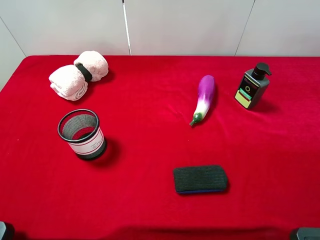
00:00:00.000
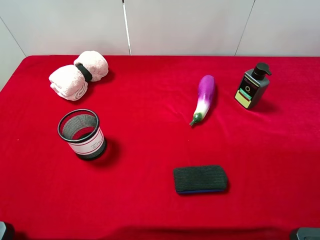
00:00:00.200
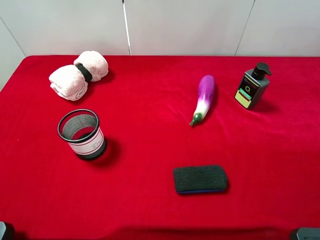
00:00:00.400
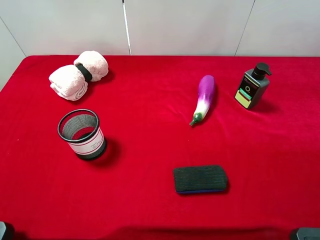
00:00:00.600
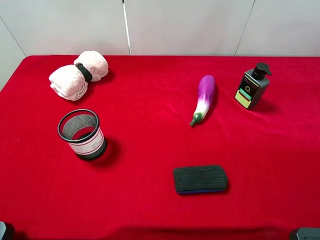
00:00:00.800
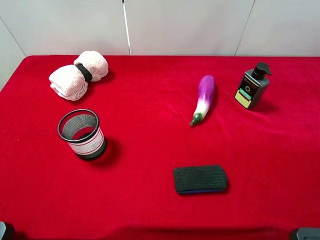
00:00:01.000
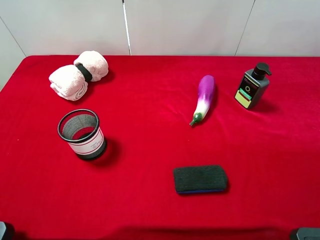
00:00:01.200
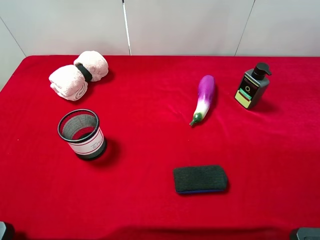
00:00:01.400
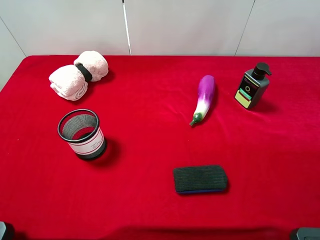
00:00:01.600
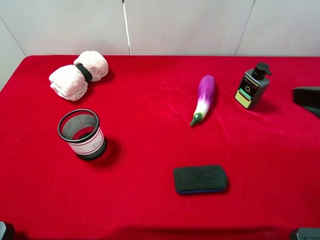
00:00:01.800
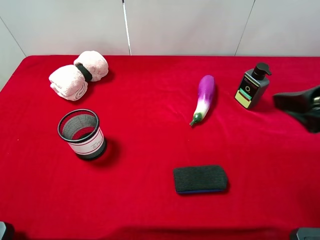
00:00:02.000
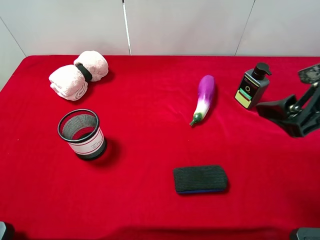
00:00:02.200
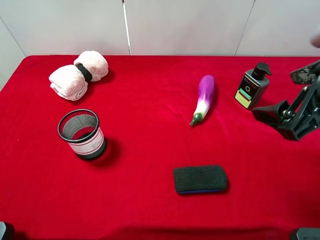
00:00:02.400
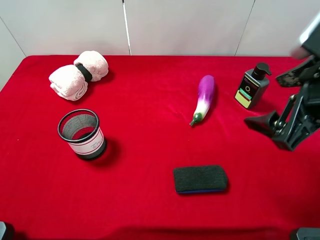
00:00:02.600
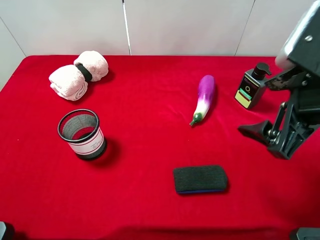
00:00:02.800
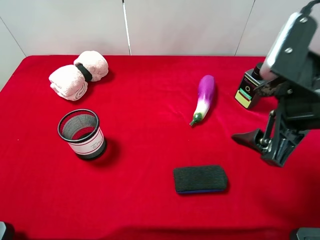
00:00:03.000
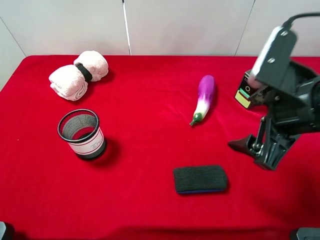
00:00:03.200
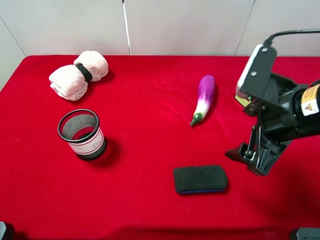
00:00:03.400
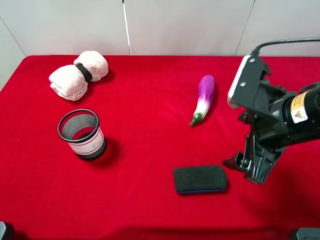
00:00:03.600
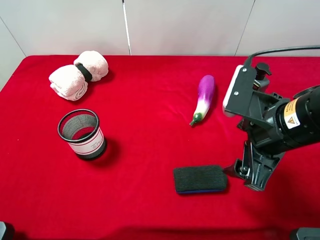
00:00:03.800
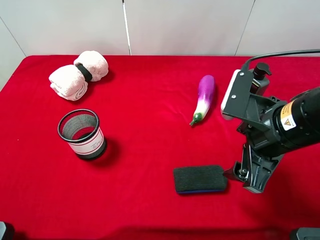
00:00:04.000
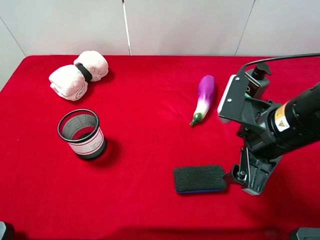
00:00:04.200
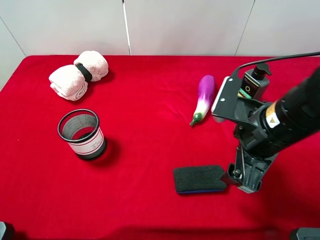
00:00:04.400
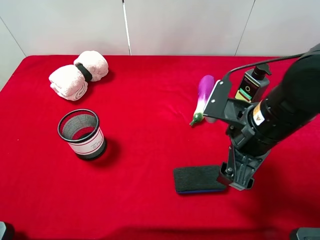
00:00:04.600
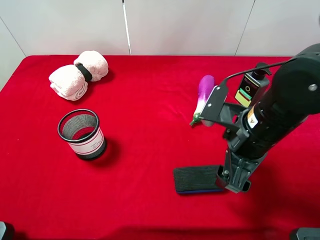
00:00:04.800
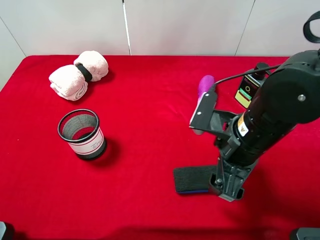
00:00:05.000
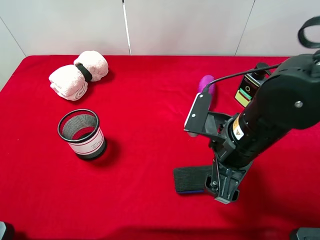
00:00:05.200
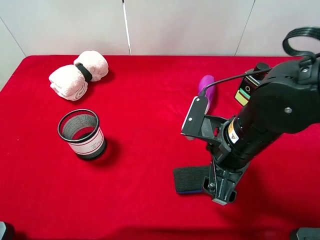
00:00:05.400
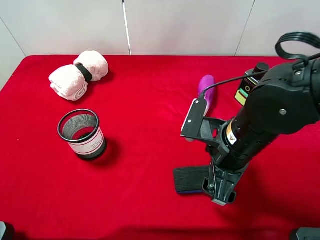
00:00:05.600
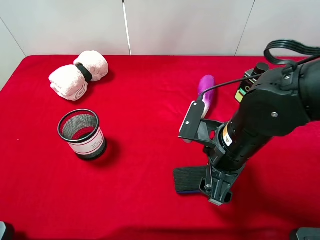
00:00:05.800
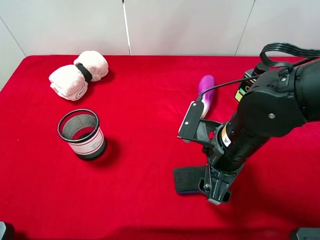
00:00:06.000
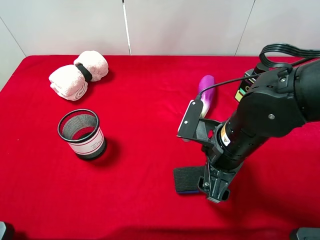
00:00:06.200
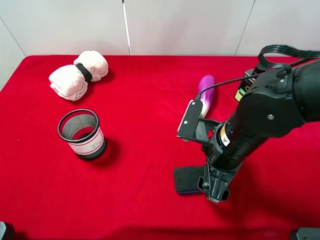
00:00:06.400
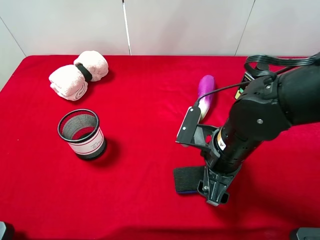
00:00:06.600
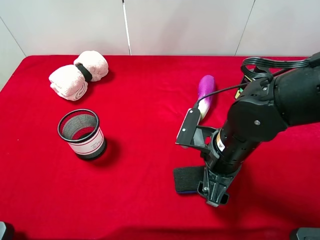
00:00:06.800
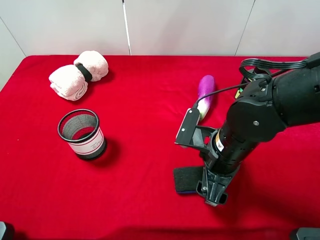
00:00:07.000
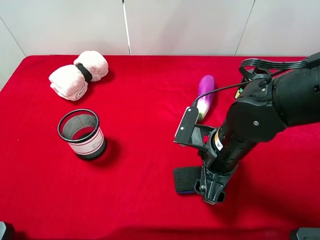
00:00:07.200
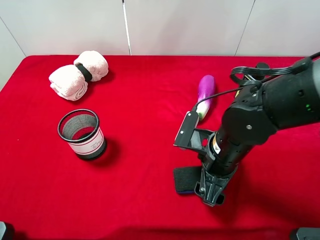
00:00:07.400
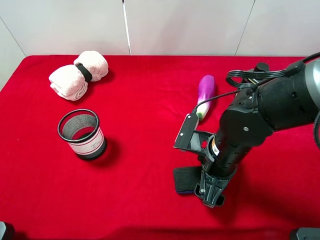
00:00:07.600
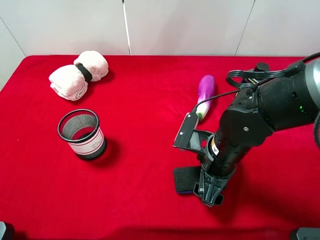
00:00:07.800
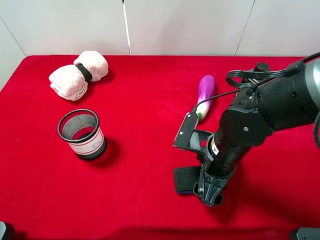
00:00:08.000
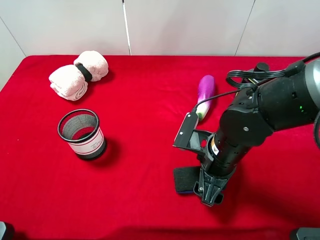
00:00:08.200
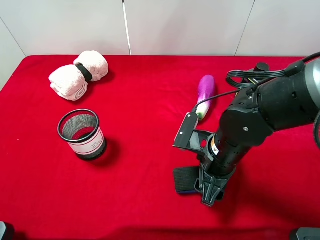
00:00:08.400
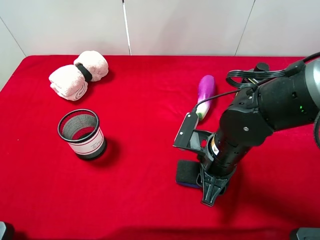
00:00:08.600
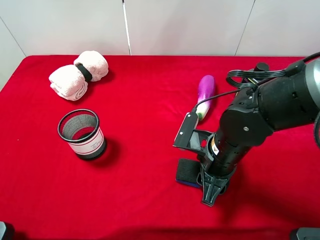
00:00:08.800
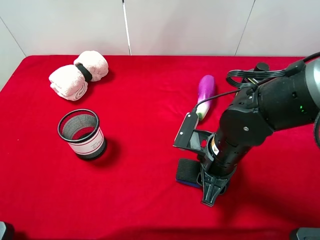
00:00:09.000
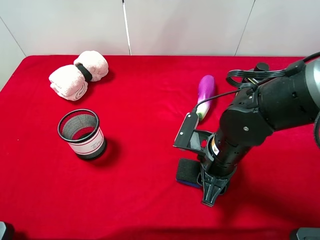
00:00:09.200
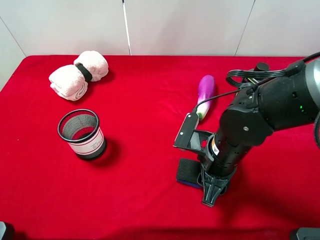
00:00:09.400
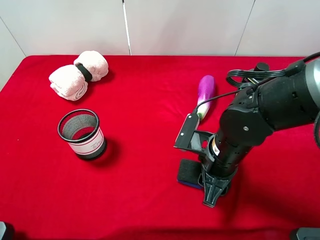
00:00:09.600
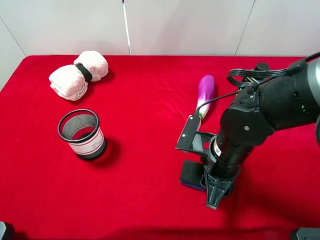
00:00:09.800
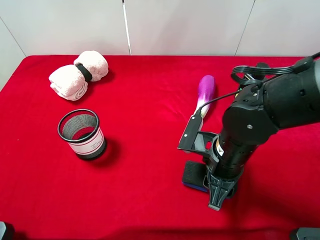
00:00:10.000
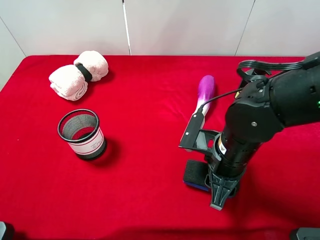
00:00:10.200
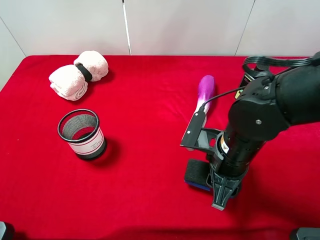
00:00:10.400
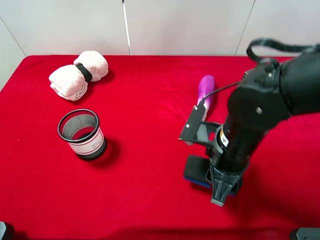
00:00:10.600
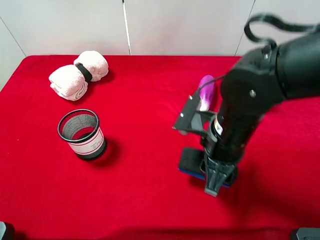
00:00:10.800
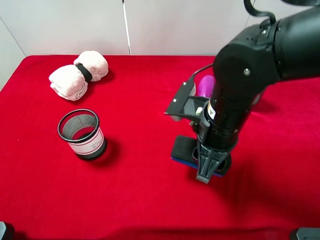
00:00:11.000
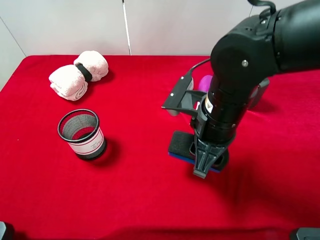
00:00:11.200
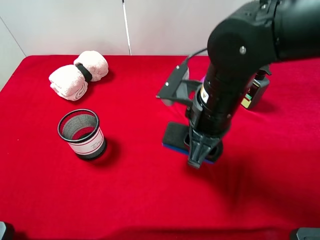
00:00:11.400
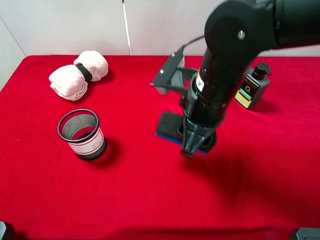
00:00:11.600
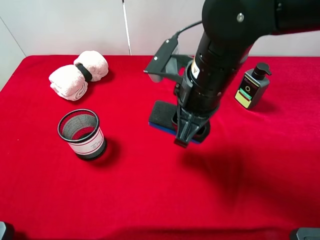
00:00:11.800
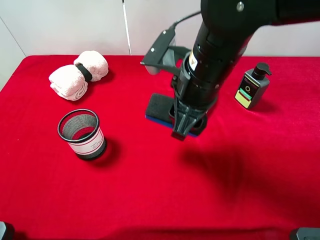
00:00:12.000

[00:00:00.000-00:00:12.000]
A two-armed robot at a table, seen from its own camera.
Task of the whole recording: the gripper move the object.
Step, 00:00:00.000 to 00:00:09.000: Grasp the blue blackboard erasure with the right gripper.
00:00:01.600 to 00:00:03.000: The right gripper moves to the left, downward and forward, approximately 10 cm.
00:00:03.000 to 00:00:04.400: The right gripper is displaced downward by about 5 cm.
00:00:04.400 to 00:00:06.000: The right gripper ends up some 5 cm from where it was.
00:00:06.000 to 00:00:07.600: The grippers move only a little.
00:00:07.600 to 00:00:09.000: The right gripper closes its fingers.
00:00:09.000 to 00:00:10.400: The grippers move only a little.
00:00:10.400 to 00:00:12.000: The right gripper moves upward, to the left and forward, approximately 15 cm.

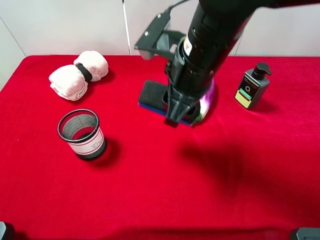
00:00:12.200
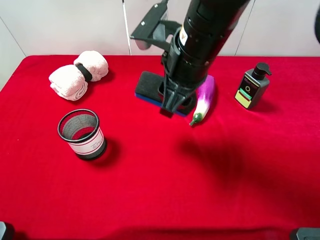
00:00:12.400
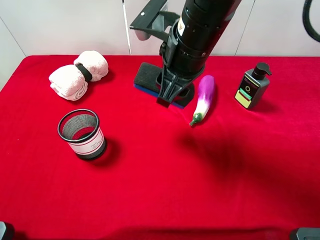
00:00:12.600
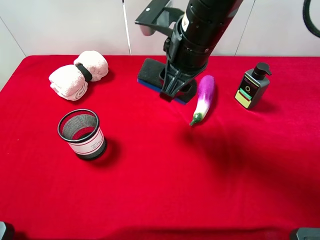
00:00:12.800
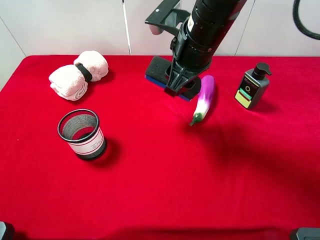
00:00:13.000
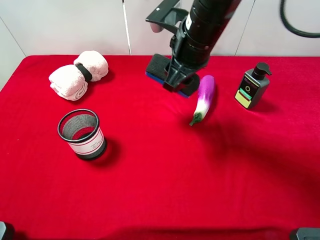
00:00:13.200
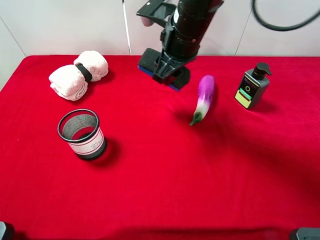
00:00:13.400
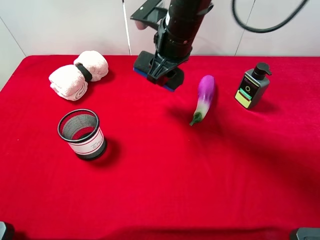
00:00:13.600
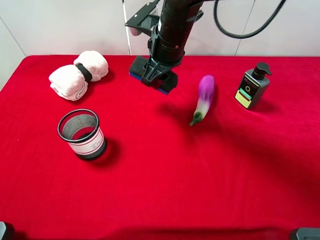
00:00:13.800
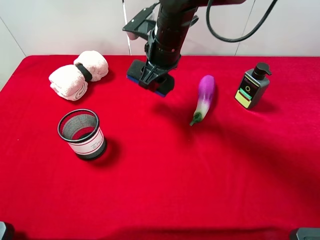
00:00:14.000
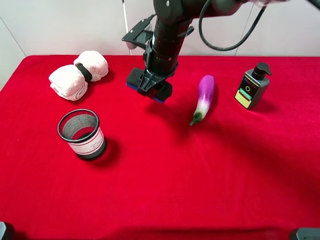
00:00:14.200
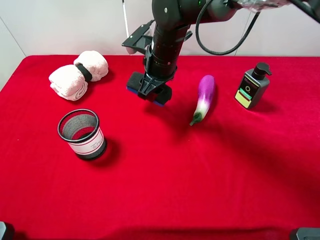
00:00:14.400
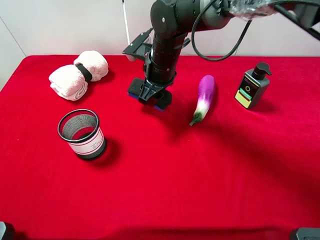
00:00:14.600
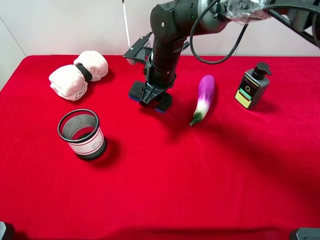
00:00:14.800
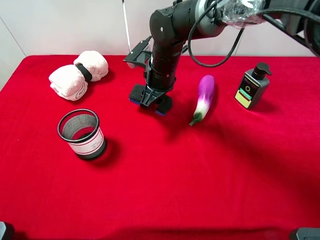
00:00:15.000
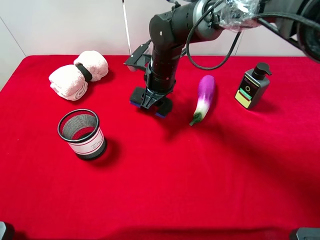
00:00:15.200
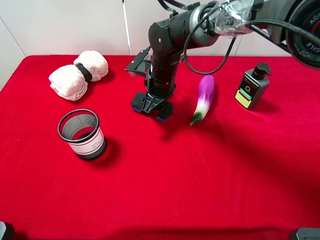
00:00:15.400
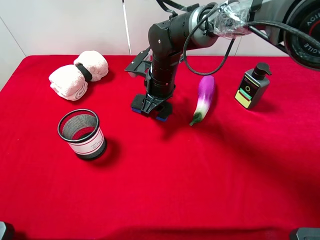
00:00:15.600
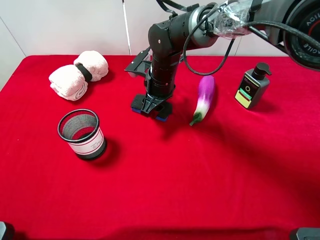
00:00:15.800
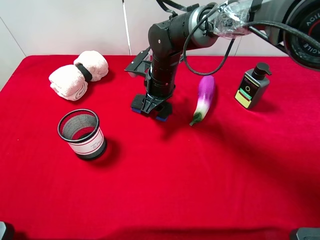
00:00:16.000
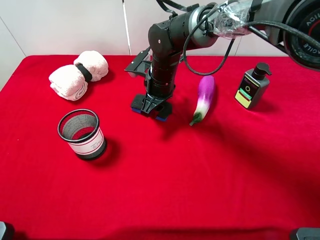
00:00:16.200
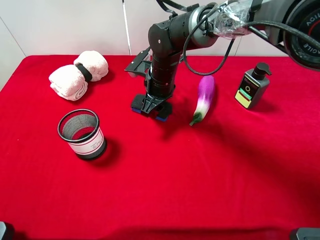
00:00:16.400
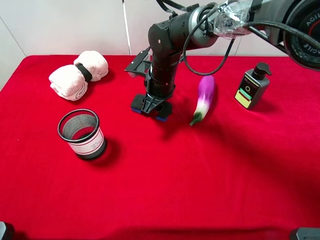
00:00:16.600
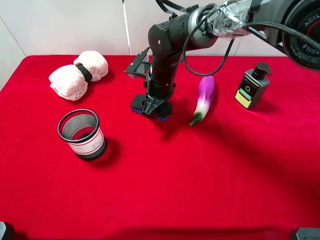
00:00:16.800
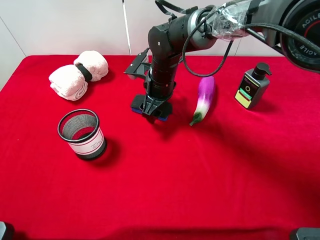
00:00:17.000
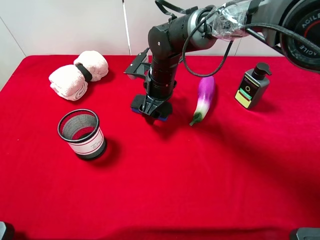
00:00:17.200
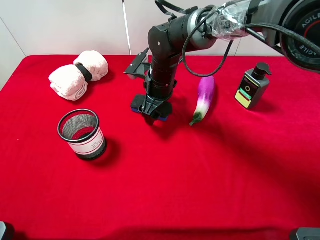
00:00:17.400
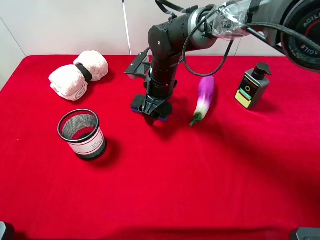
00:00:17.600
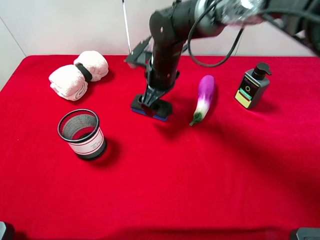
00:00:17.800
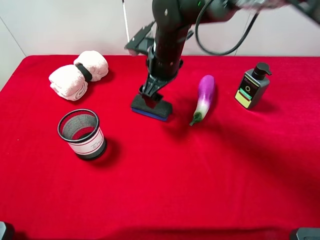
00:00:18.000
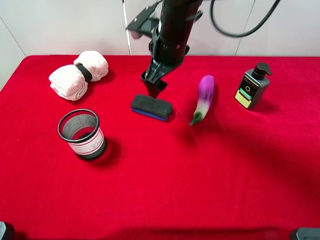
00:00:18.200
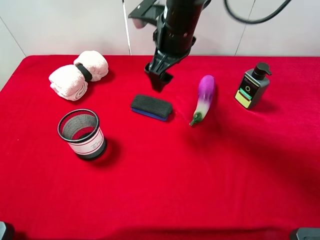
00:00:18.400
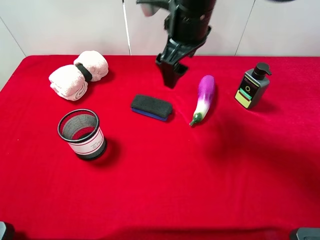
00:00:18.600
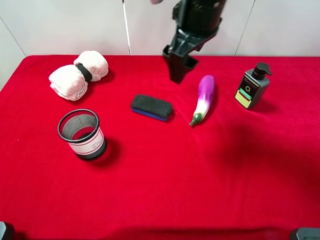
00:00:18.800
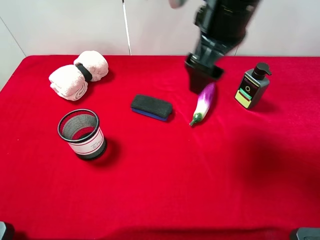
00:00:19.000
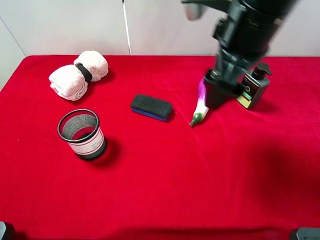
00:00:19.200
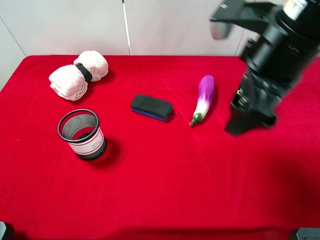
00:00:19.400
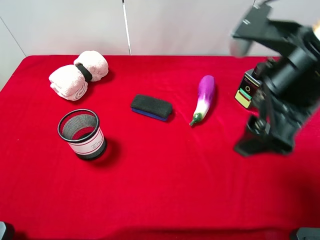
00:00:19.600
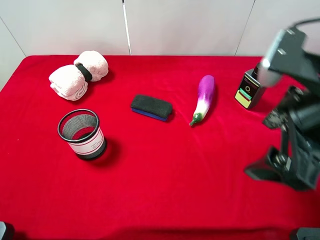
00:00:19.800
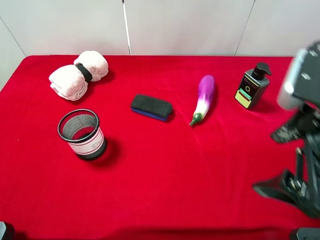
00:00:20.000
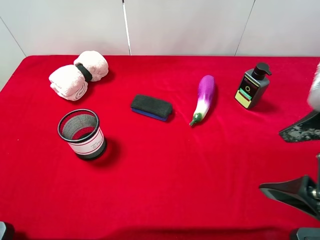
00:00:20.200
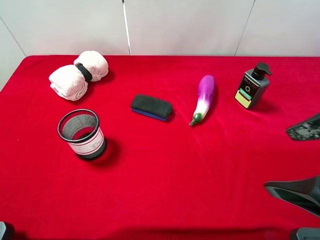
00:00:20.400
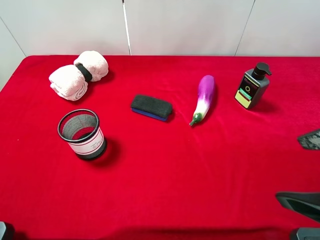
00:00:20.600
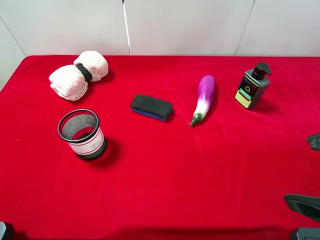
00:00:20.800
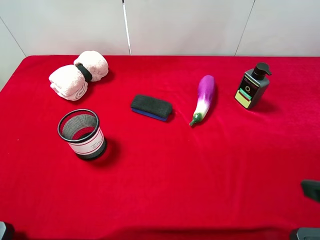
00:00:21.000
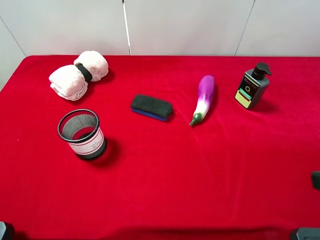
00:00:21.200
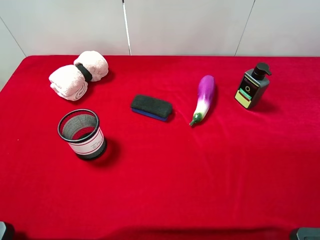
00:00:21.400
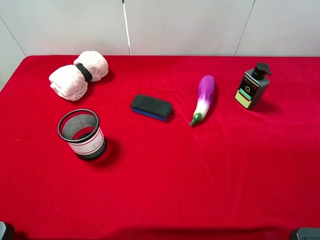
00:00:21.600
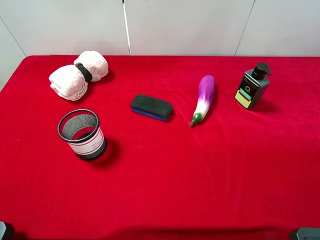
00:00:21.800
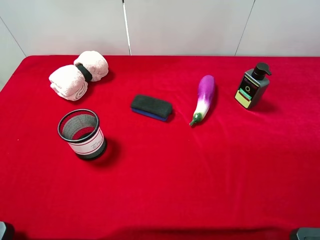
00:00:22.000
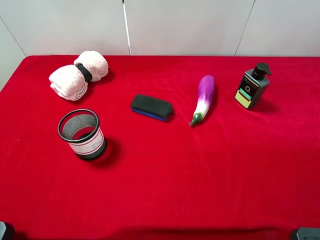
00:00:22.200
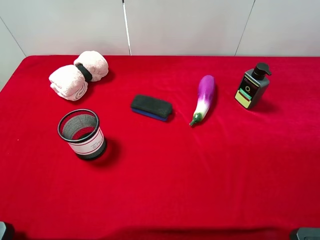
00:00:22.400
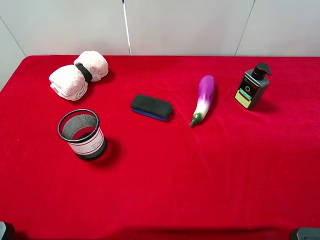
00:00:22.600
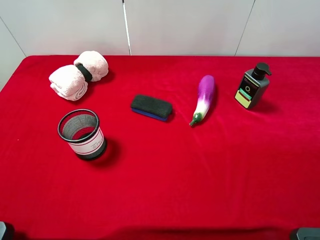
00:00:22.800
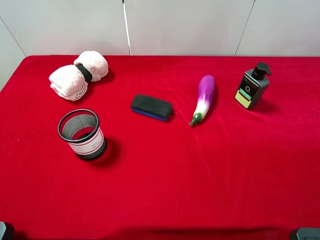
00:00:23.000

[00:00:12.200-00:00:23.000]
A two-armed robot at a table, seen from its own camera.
Task of the whole recording: the gripper move the object.
Step, 00:00:12.200 to 00:00:18.200: Place the blue blackboard erasure on the table with the right gripper.
00:00:12.200 to 00:00:13.800: The right gripper is displaced forward by roughly 10 cm.
00:00:13.800 to 00:00:15.200: The right gripper moves downward, roughly 10 cm.
00:00:15.200 to 00:00:16.800: The right gripper opens.
00:00:16.800 to 00:00:18.400: The right gripper goes about 15 cm upward, and opens up.
00:00:18.400 to 00:00:20.000: The right gripper goes about 30 cm backward and to the right.
00:00:20.000 to 00:00:21.400: The right gripper shifts about 10 cm to the right and backward.
